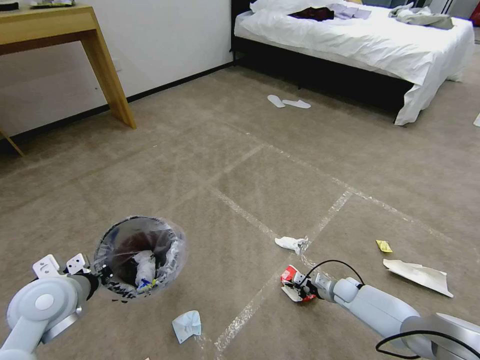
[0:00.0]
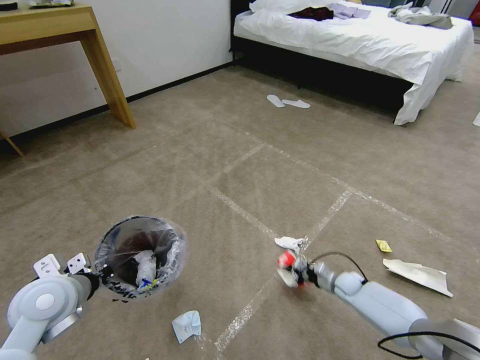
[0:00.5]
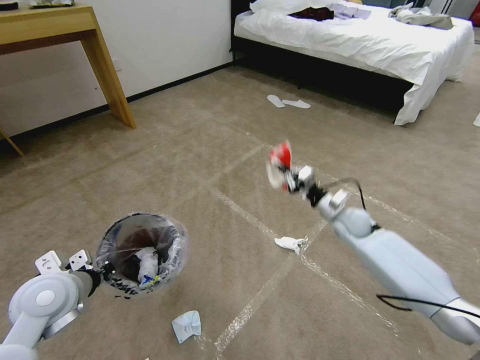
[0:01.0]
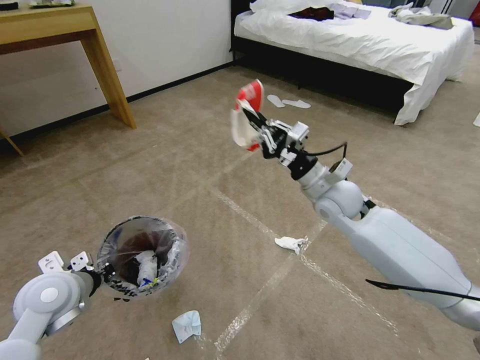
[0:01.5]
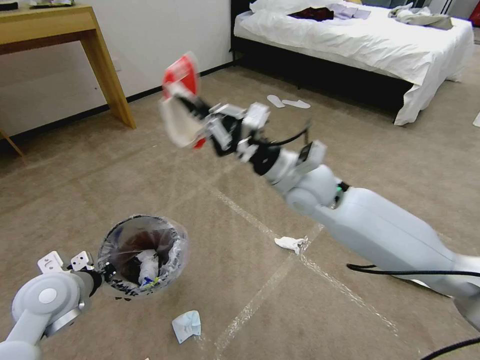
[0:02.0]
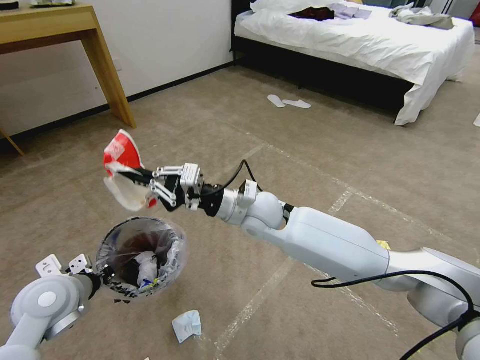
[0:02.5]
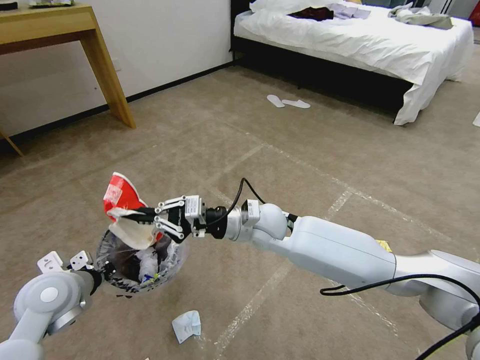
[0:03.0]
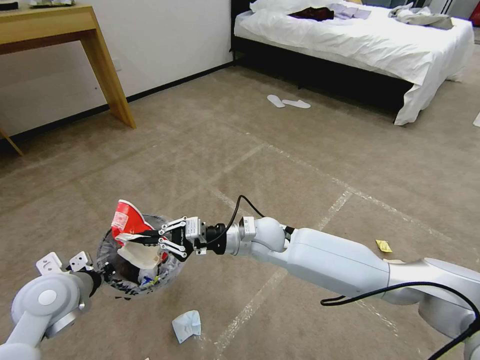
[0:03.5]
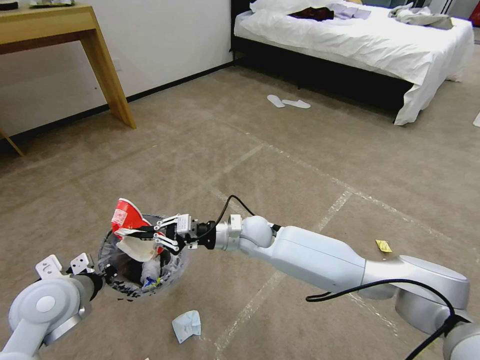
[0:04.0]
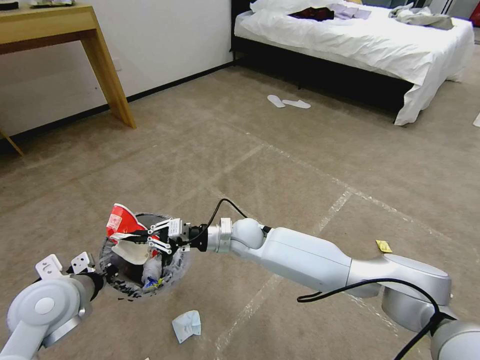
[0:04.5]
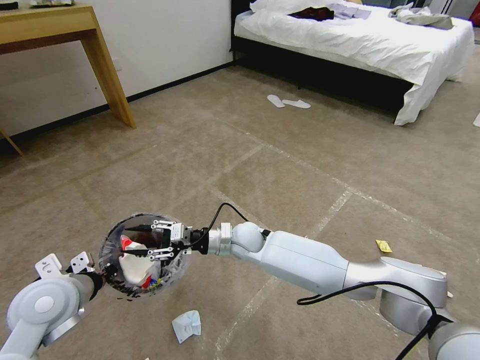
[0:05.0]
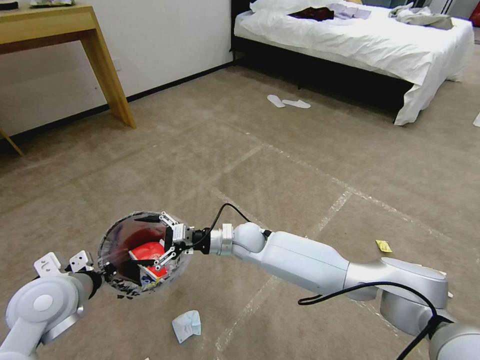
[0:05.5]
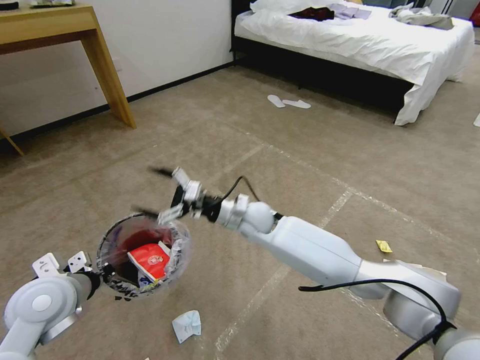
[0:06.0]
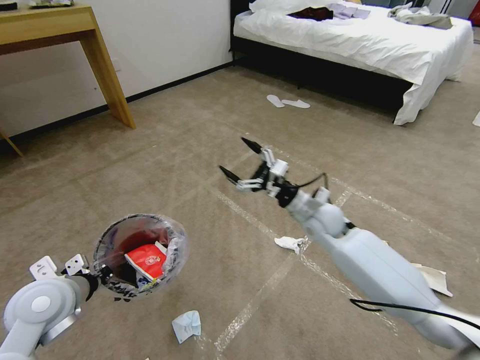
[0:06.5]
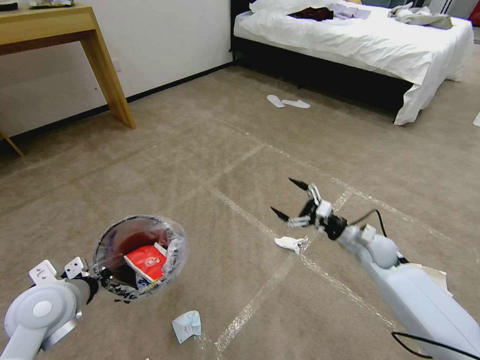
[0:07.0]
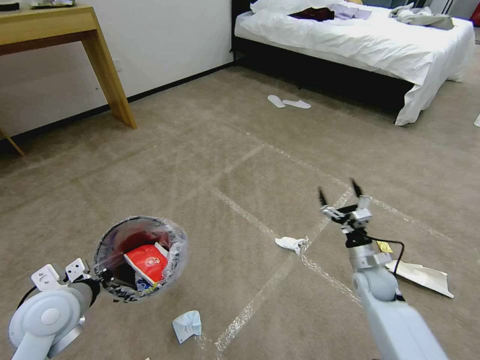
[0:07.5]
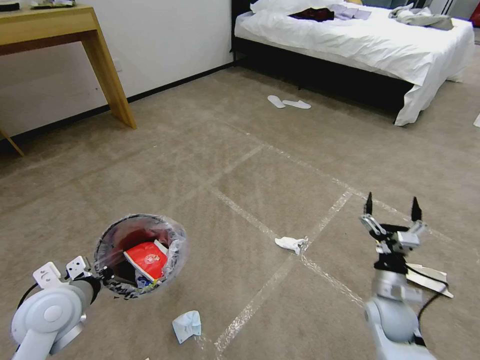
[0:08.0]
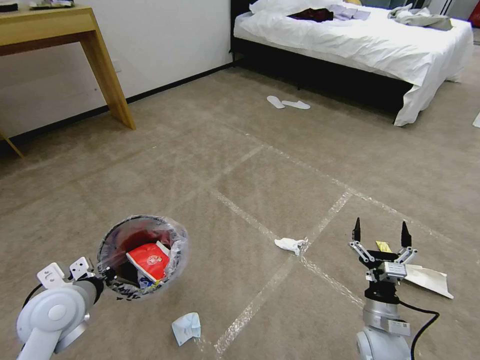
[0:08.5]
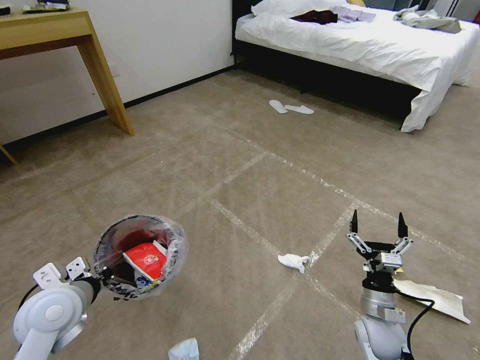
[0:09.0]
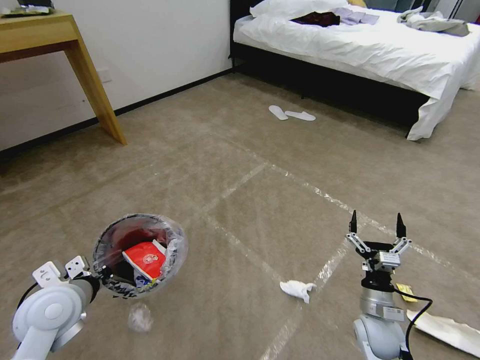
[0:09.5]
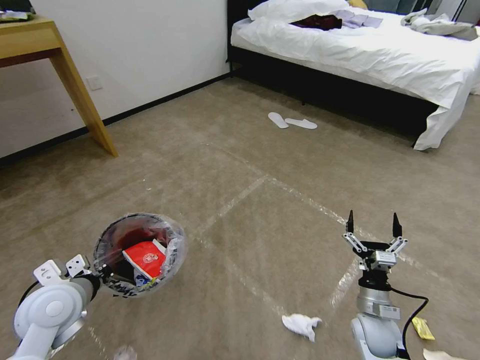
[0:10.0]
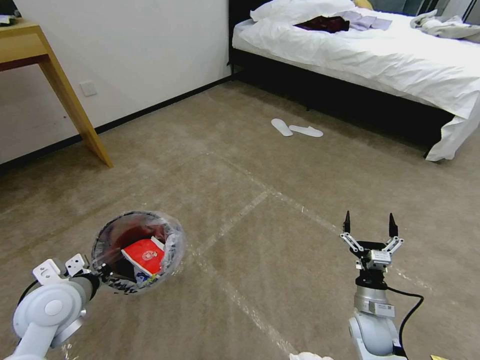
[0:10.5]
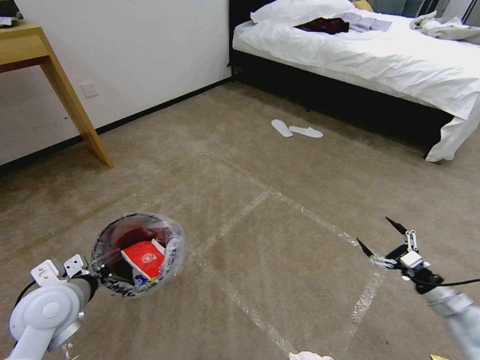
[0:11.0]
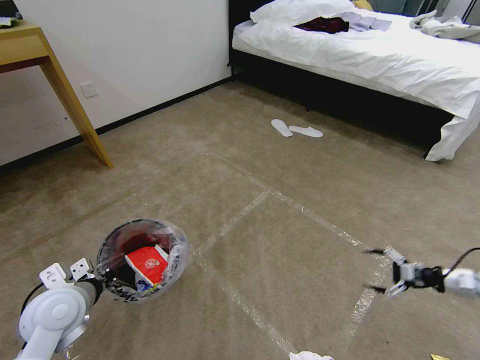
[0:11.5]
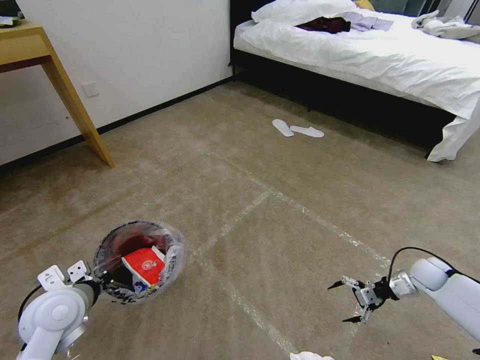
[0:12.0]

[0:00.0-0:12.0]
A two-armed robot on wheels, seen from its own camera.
Task of the whole recording: Pick up the trash bin and place the garbage on the floor into it.
0:00.0 to 0:02.0: The right gripper is displaced upward and to the left by approximately 50 cm.
0:02.0 to 0:04.0: The right gripper shifts approximately 20 cm downward and to the left.
0:04.0 to 0:06.0: The right gripper opens its fingers.
0:06.0 to 0:08.0: The right gripper is displaced to the right, backward and downward by roughly 35 cm.
0:08.0 to 0:10.0: The right gripper moves some 5 cm.
0:10.0 to 0:12.0: The right gripper goes approximately 25 cm to the right and forward.

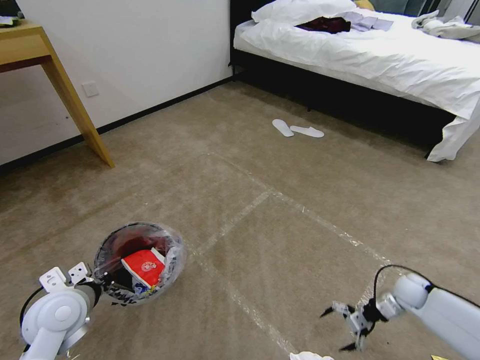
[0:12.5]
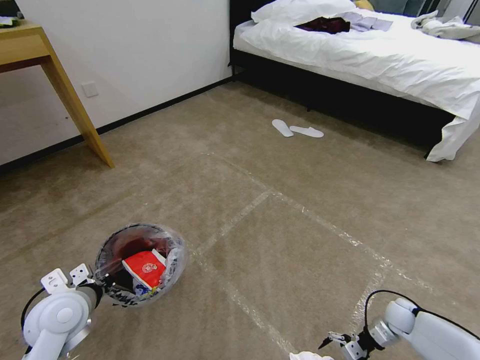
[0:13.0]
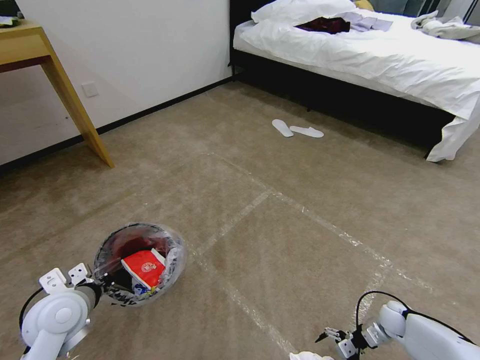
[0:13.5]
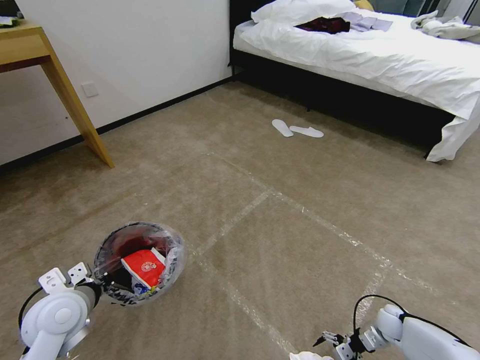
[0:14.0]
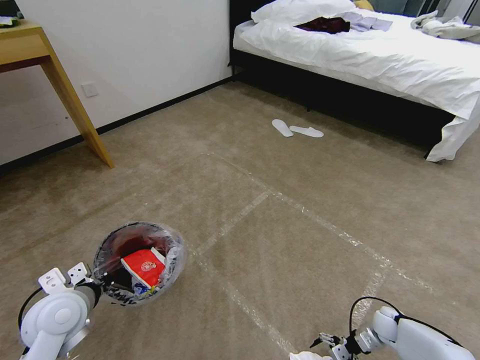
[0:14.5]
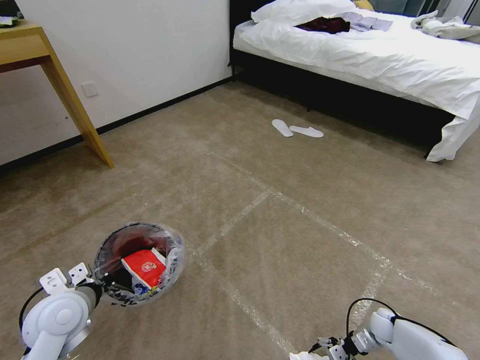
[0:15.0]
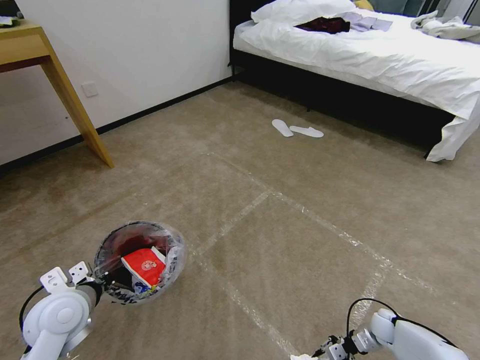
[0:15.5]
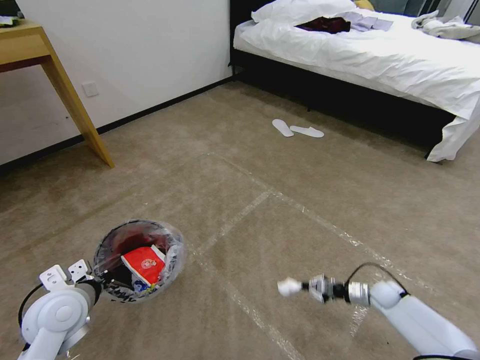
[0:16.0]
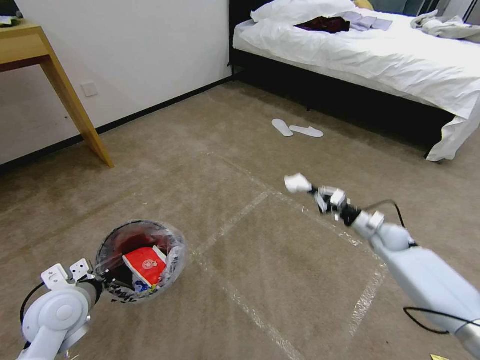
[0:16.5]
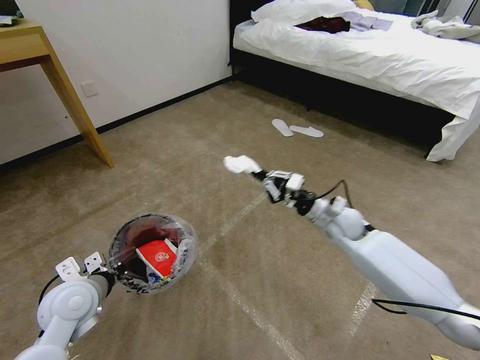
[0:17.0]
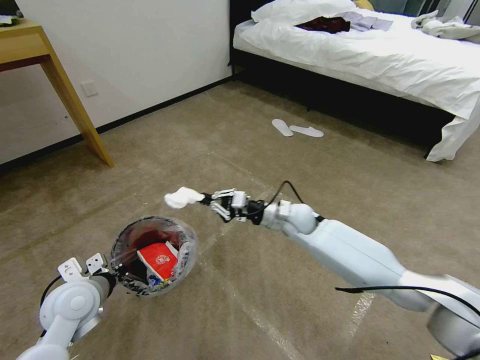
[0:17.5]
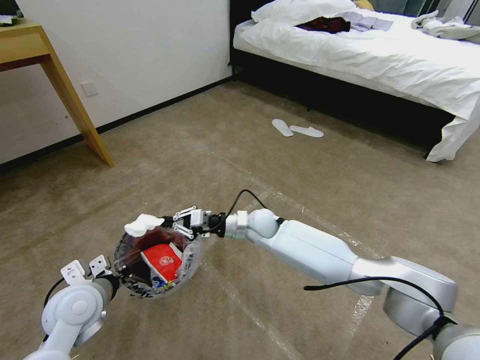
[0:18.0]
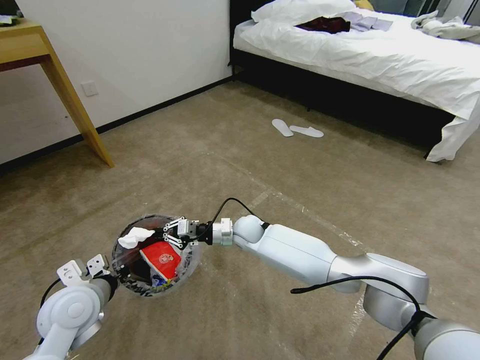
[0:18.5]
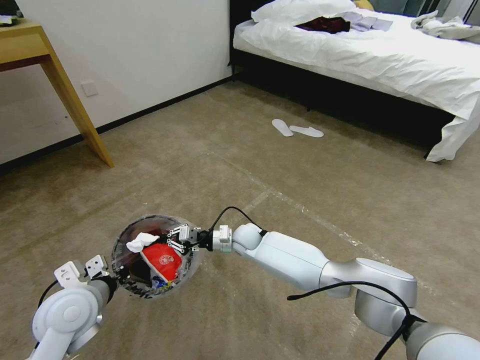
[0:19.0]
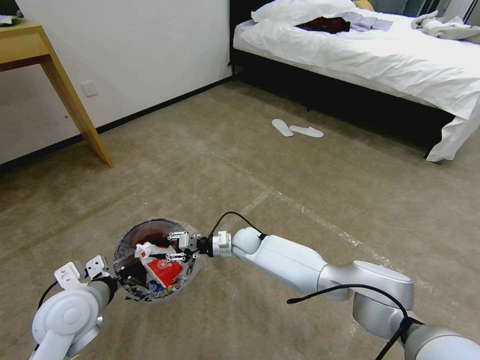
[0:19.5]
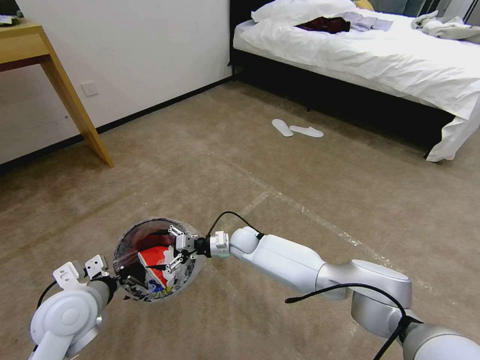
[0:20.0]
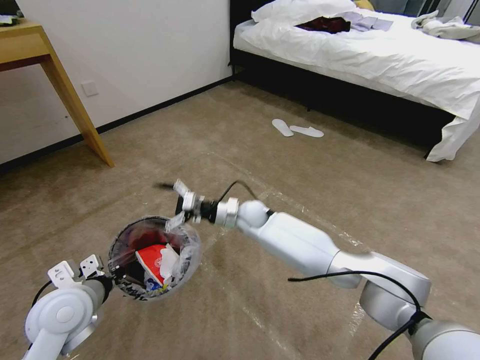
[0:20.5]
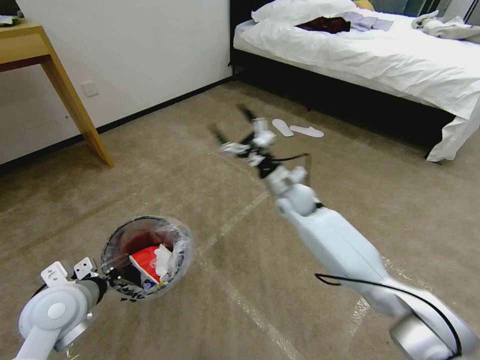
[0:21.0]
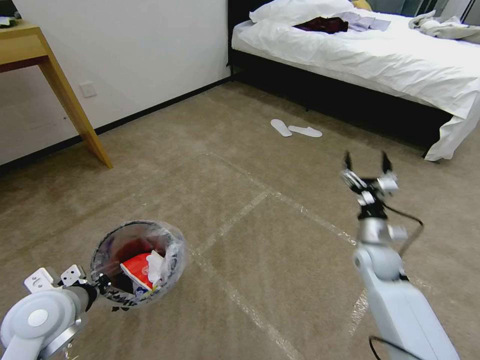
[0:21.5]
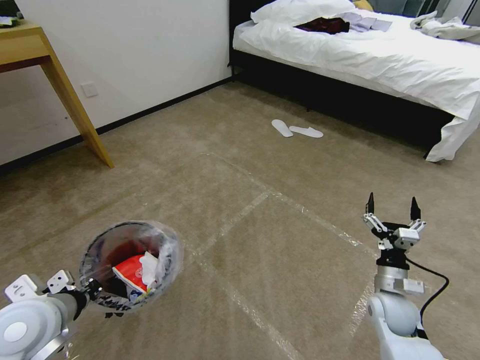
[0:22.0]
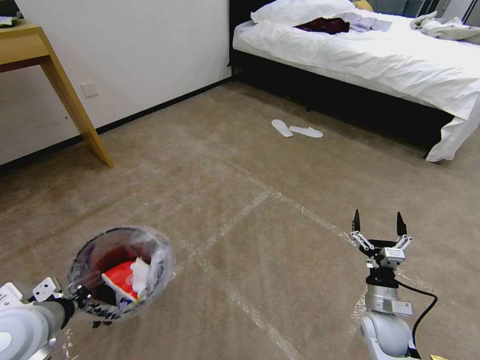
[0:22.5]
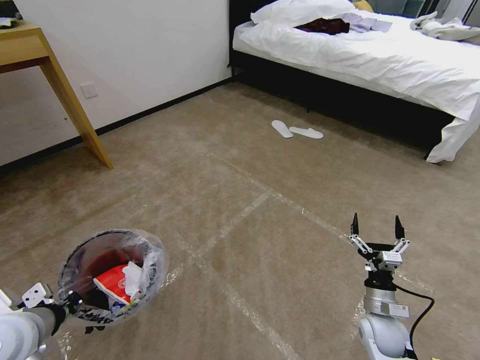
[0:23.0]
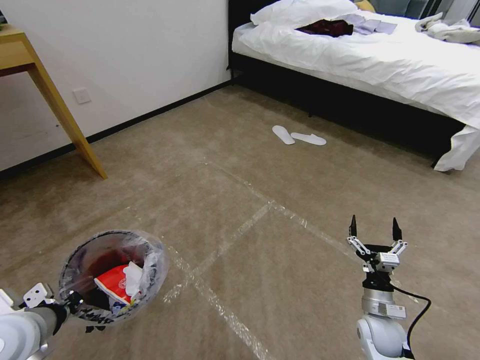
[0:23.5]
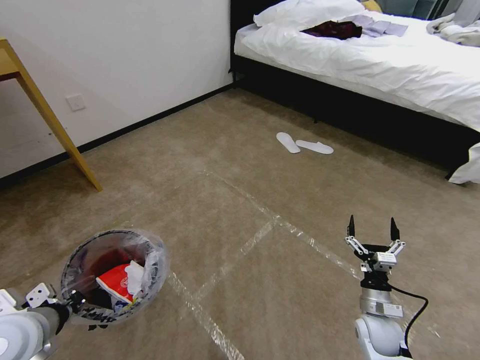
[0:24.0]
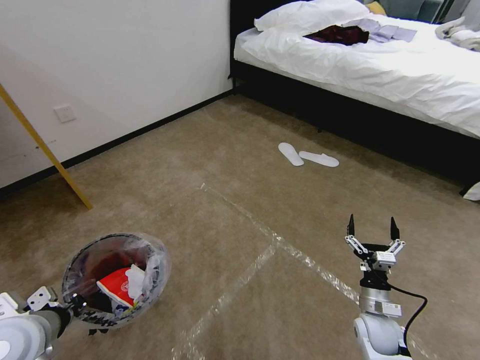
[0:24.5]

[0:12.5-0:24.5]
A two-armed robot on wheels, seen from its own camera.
Task of the whole recording: Pick up the trash bin and place the garbage on the floor into it.
0:12.5 to 0:14.5: The right gripper shifts approximately 10 cm downward and backward.
0:14.5 to 0:16.5: The right gripper travels upward and forward by roughly 25 cm, and closes its fingers.
0:16.5 to 0:18.5: The right gripper goes about 40 cm to the left.
0:18.5 to 0:20.5: The right gripper shifts by approximately 5 cm, and opens.
0:20.5 to 0:22.5: The right gripper is displaced to the right and backward by approximately 40 cm. Meanwhile the left gripper moves approximately 5 cm.

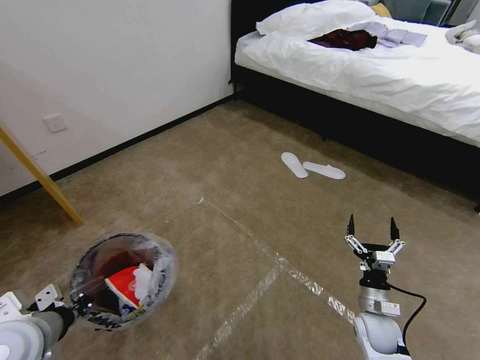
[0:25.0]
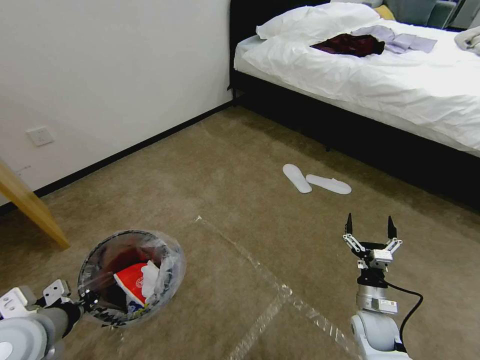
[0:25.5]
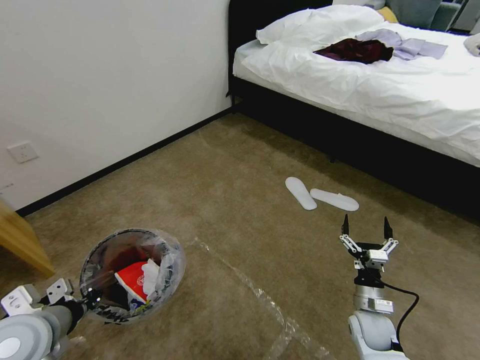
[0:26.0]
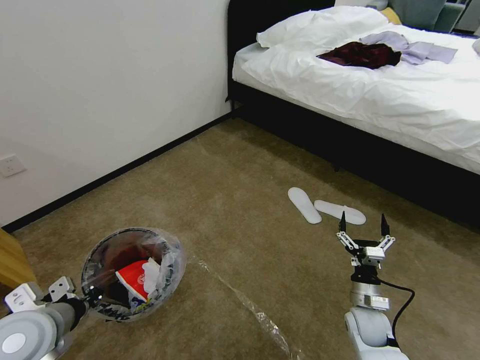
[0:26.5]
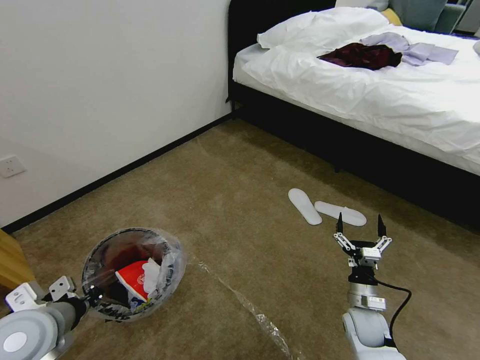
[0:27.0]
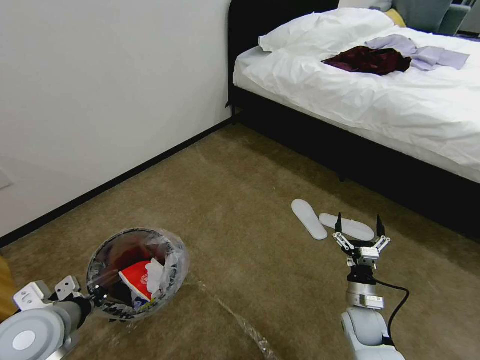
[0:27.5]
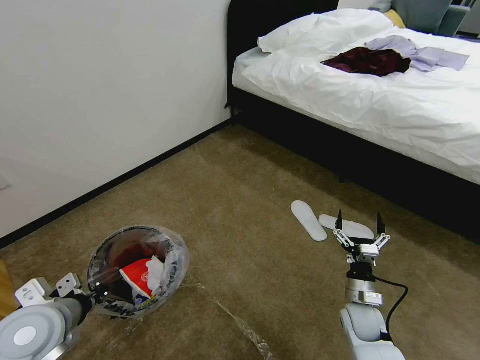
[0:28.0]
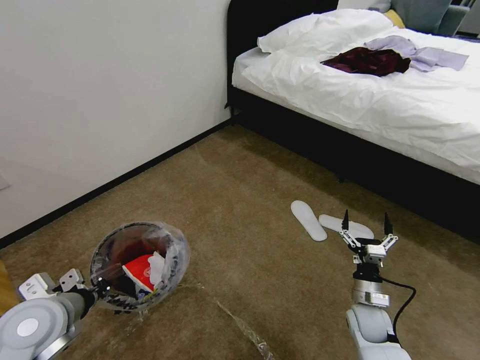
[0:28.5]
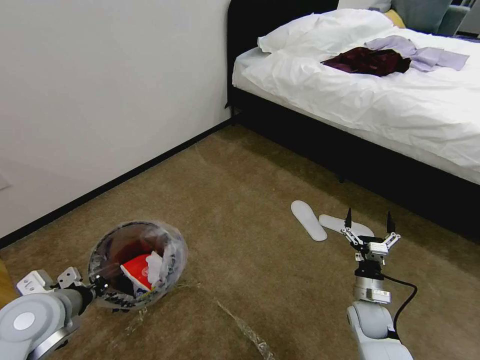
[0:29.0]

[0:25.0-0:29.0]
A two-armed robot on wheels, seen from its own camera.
Task of the whole recording: Pick up the trash bin and place the garbage on the floor into it.
0:27.0 to 0:29.0: The grippers stay close to where they were, moving slightly.
